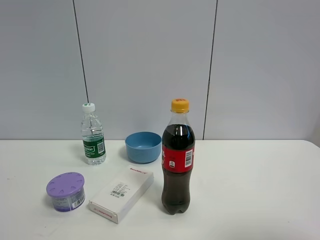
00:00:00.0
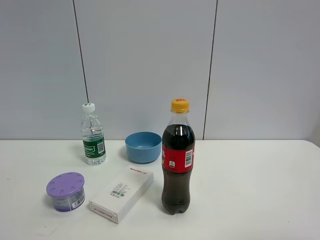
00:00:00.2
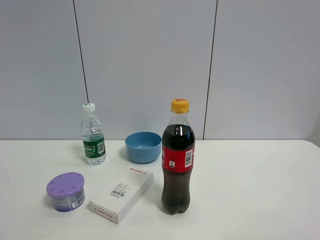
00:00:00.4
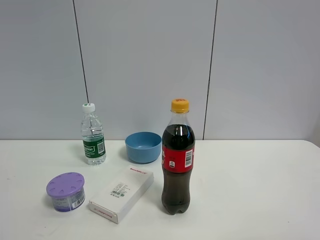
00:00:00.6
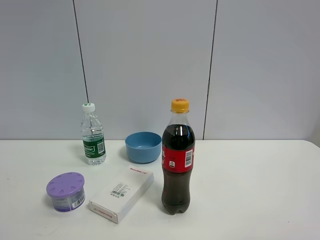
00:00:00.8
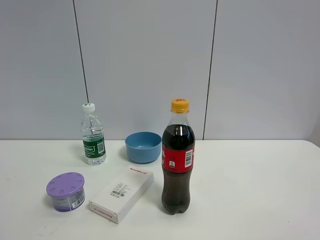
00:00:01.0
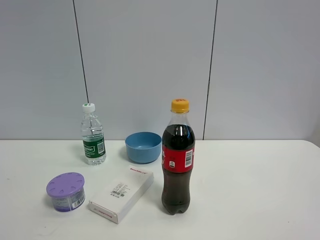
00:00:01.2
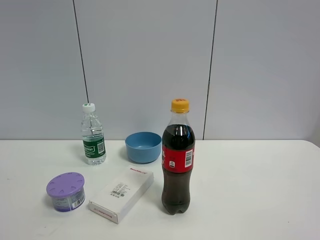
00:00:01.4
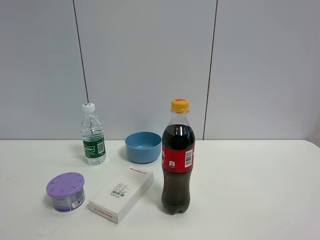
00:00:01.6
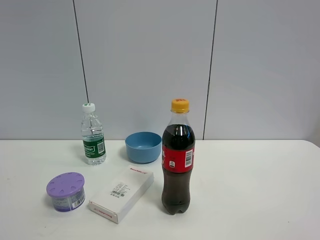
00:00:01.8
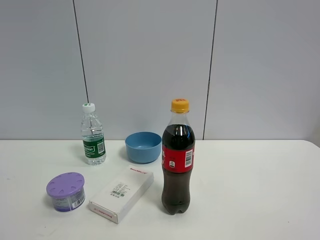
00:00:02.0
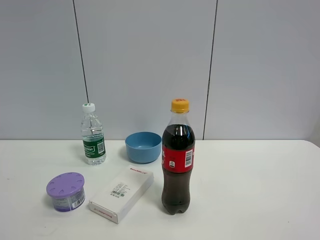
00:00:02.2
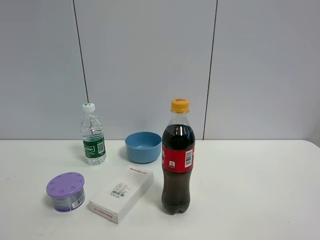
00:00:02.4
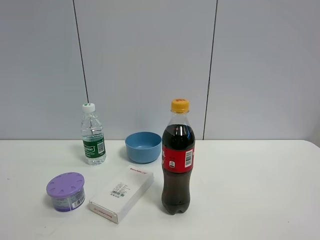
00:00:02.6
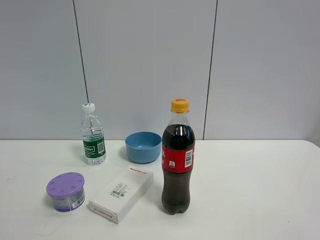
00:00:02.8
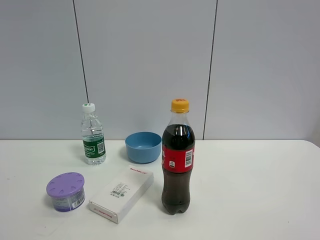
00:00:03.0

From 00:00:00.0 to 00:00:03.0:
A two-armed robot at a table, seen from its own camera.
Task of the whole recording: the gripper move the object.
From 00:00:01.6 to 00:00:03.0: The two grippers keep their place.

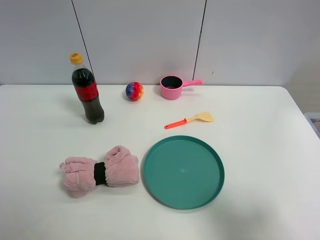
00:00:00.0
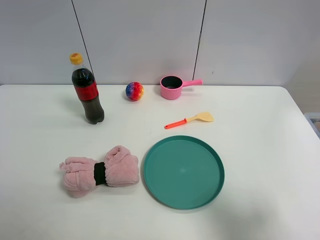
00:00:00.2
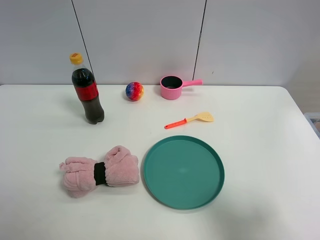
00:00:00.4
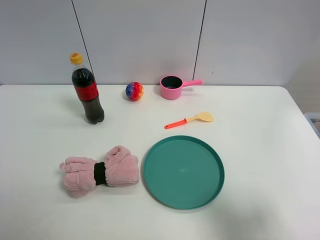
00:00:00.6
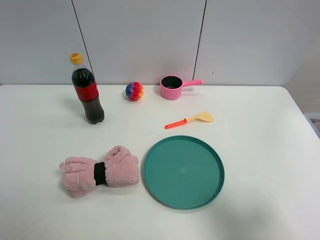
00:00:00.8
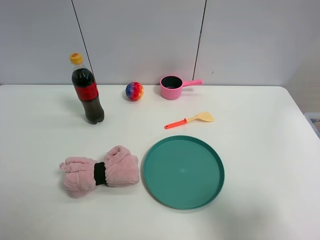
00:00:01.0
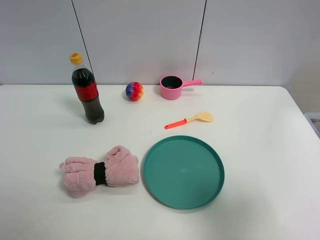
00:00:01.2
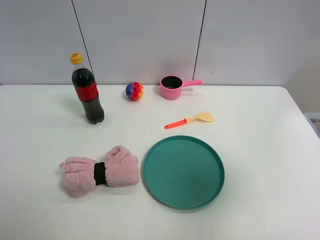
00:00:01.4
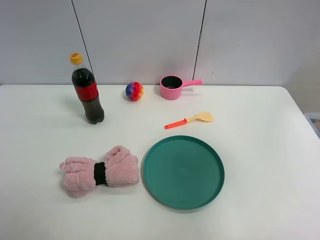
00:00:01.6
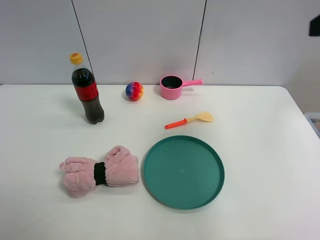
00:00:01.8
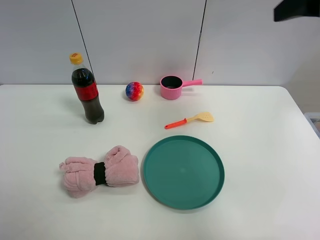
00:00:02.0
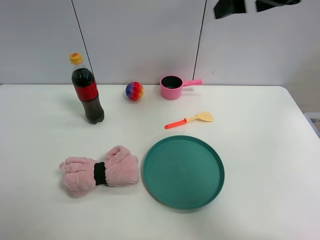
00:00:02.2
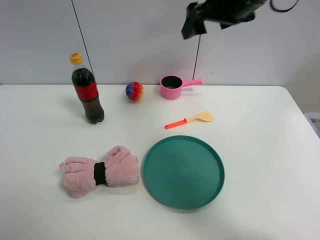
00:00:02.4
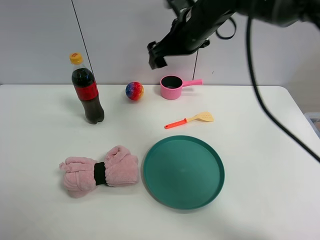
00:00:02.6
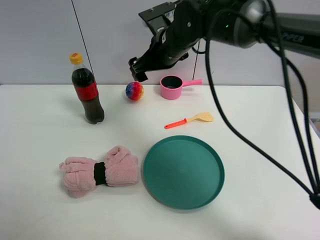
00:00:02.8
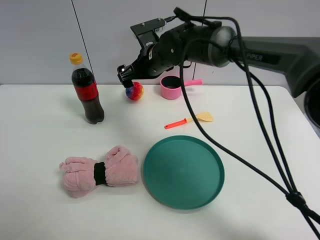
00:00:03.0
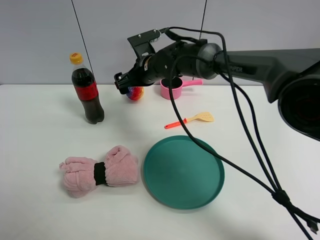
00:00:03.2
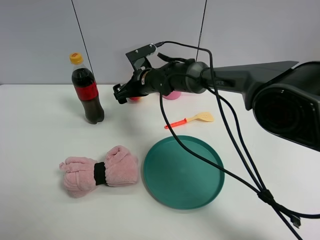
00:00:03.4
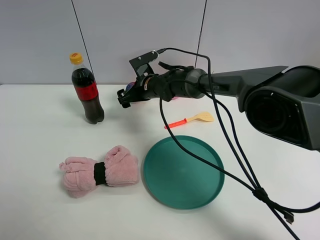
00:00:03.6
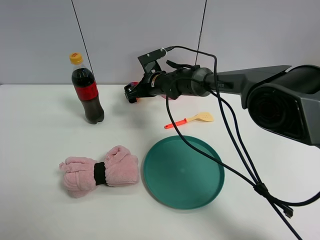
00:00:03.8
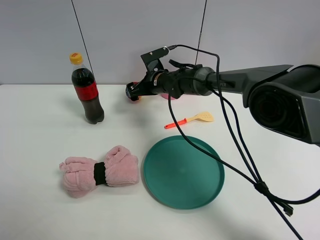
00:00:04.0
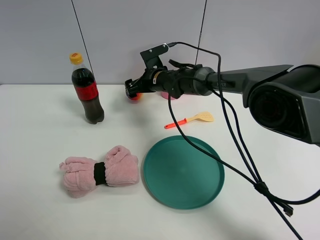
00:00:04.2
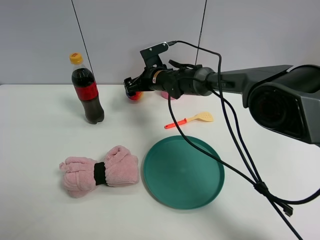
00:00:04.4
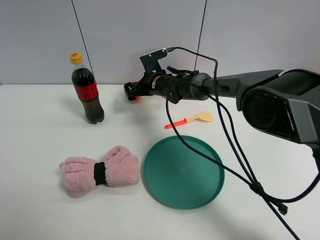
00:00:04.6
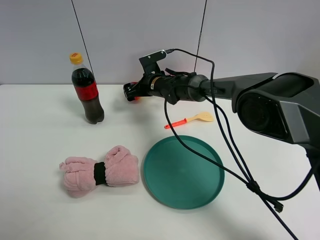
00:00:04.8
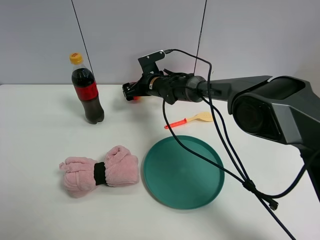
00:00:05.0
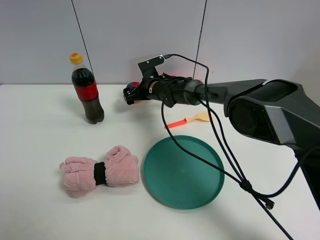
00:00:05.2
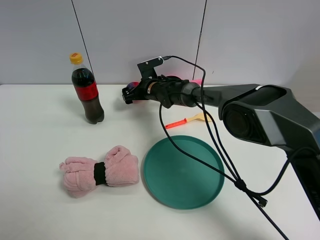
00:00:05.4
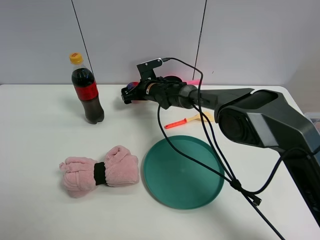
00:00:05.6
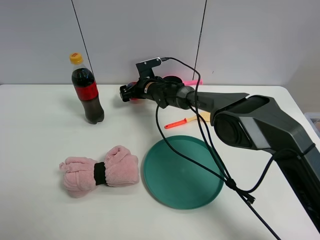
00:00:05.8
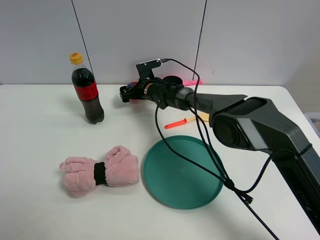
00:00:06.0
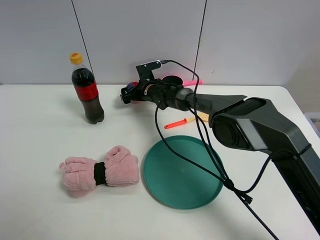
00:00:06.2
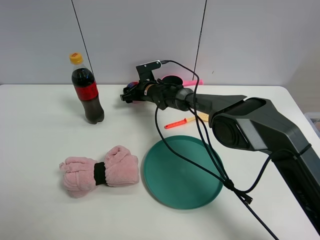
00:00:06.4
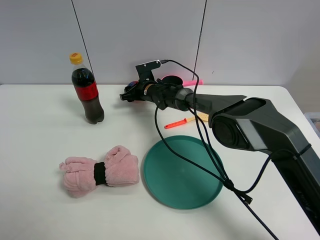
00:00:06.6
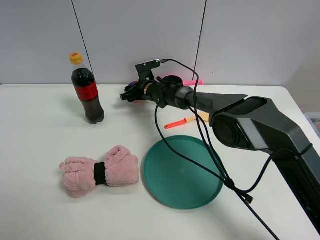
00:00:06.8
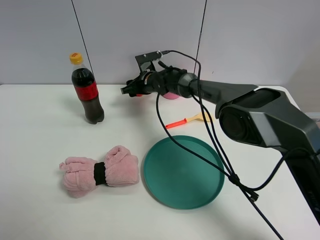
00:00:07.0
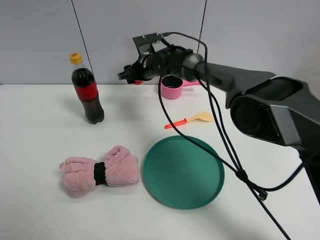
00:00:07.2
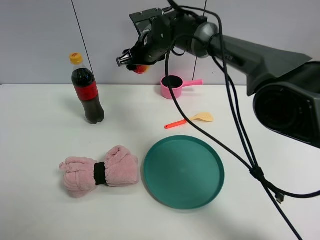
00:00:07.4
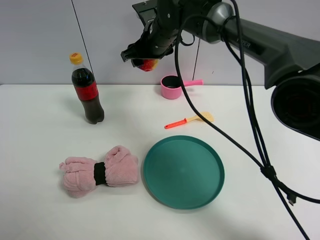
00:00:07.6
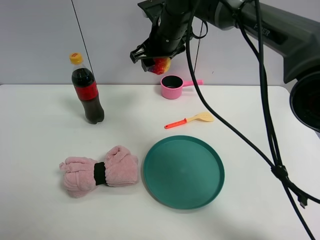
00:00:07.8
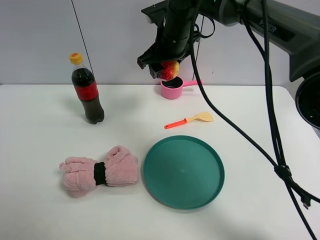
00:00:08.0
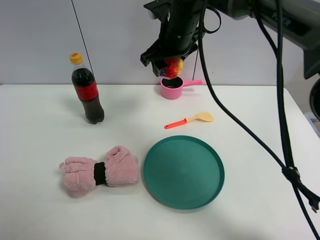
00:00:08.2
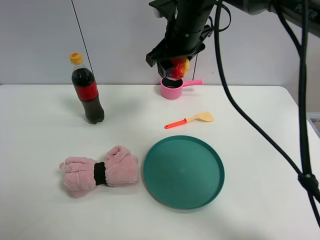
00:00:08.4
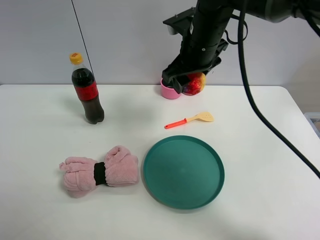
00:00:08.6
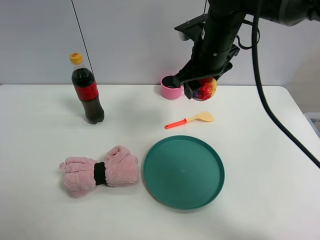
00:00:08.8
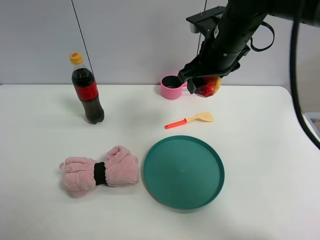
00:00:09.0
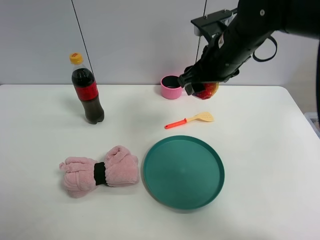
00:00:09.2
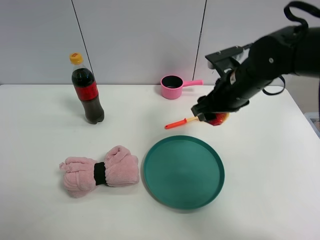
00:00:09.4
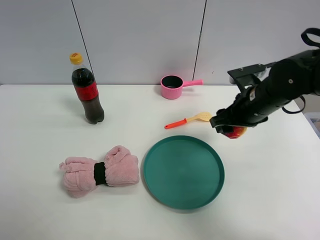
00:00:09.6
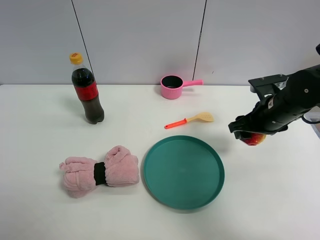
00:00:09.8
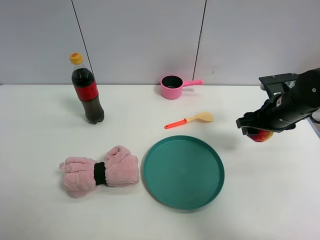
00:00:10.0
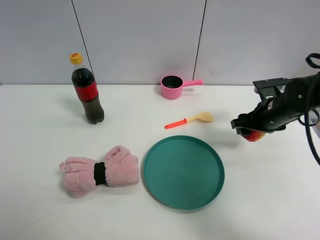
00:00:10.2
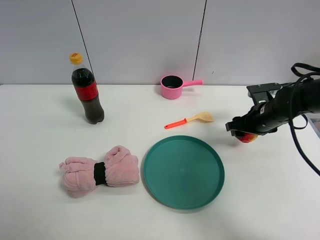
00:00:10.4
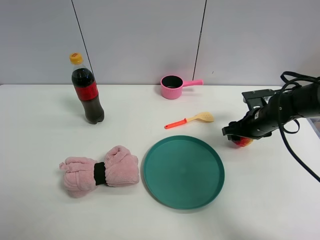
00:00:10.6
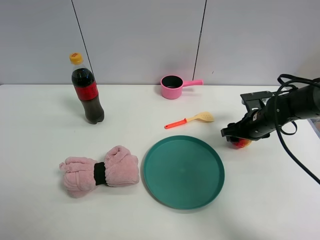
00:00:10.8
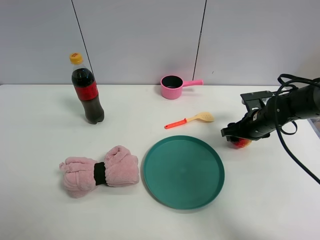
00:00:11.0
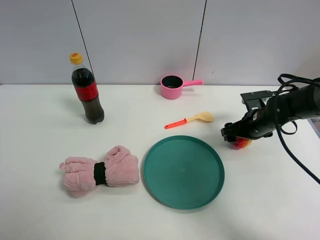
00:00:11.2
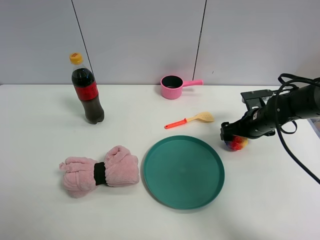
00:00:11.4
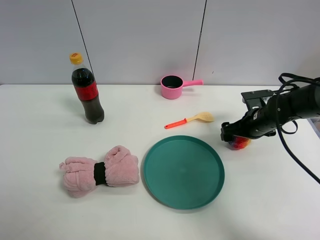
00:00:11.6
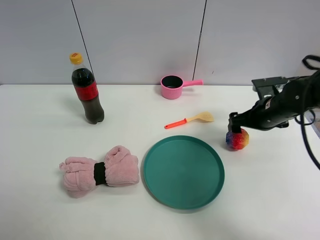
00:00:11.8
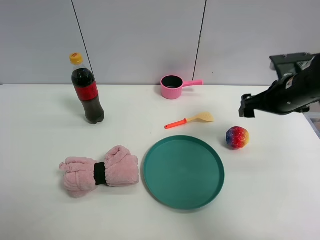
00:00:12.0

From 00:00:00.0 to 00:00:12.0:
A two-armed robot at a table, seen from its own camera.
Task of the whole recording: the gripper move the object.
Step, from 00:00:00.0 to 00:00:06.4: Grasp the colorful ball with the right gripper.
Step, from 00:00:06.6 to 00:00:11.6: Place the colorful ball on the table with the right gripper.
From 00:00:00.0 to 00:00:01.6: The right gripper is displaced upward and forward by roughly 20 cm.
From 00:00:01.6 to 00:00:03.0: The right gripper travels forward, to the left and downward by some 50 cm.
From 00:00:03.0 to 00:00:04.4: The right gripper moves downward and forward, about 10 cm.
From 00:00:04.4 to 00:00:06.0: The right gripper moves downward, approximately 5 cm.
From 00:00:06.0 to 00:00:07.6: The right gripper travels upward by about 20 cm, and closes.
From 00:00:07.6 to 00:00:09.0: The right gripper moves to the right and backward, about 15 cm.
From 00:00:09.0 to 00:00:10.4: The right gripper heads downward and to the right, covering roughly 20 cm.
From 00:00:10.4 to 00:00:12.0: The right gripper travels upward by roughly 10 cm, and opens up.

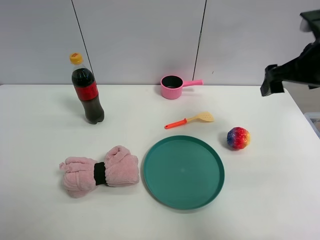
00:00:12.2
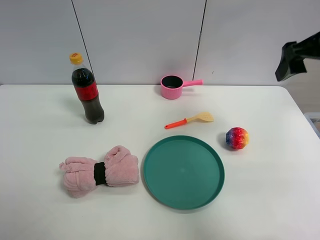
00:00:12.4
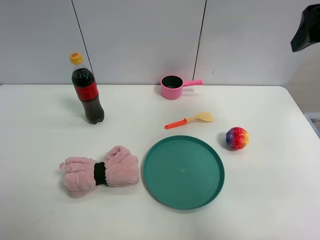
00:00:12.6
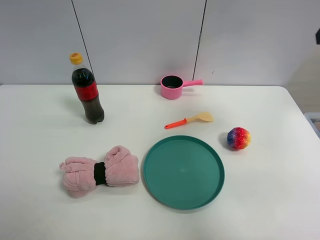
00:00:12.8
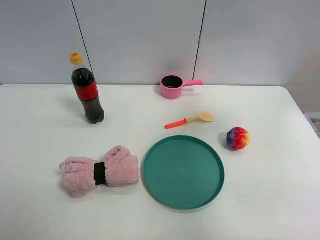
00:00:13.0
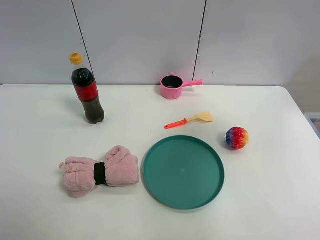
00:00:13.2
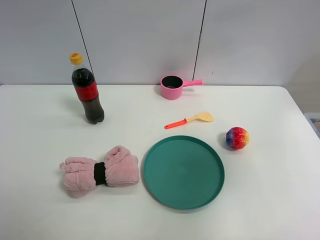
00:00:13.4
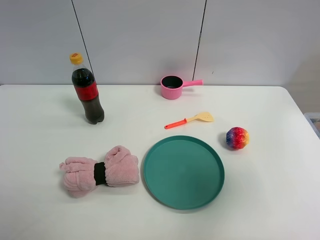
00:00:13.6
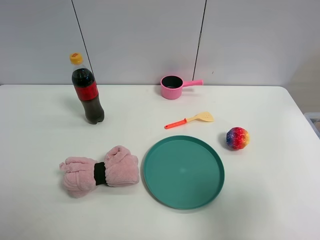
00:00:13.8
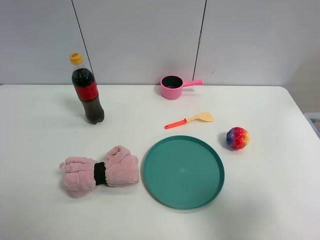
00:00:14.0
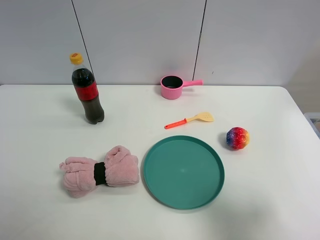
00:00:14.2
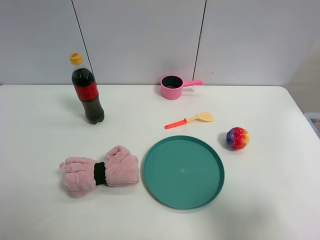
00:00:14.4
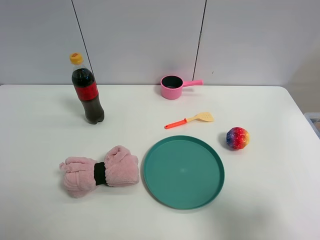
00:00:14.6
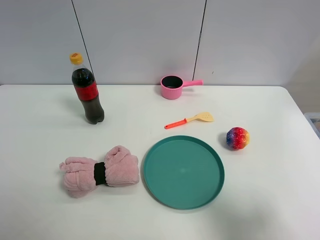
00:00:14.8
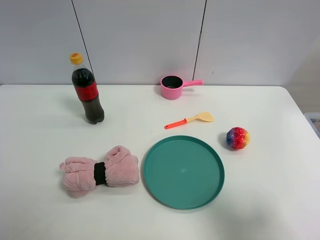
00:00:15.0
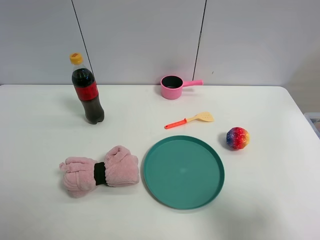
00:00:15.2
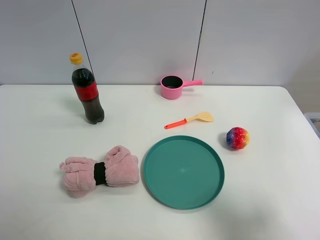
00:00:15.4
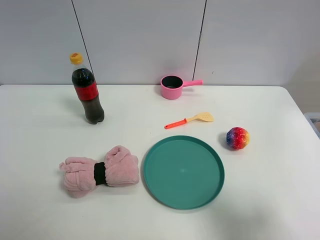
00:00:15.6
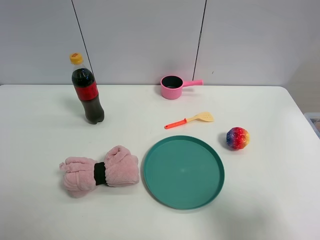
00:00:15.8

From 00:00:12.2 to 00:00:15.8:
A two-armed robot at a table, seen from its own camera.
Task of the whole recording: the gripper move the object.
From 00:00:12.2 to 00:00:14.0: The right gripper goes approximately 25 cm backward.
